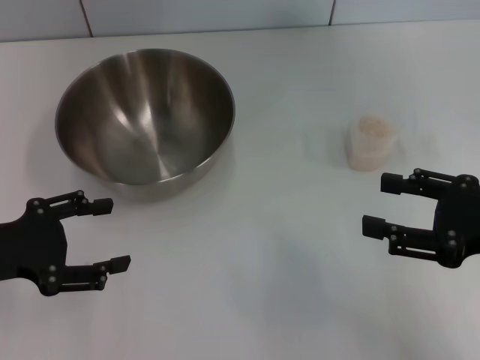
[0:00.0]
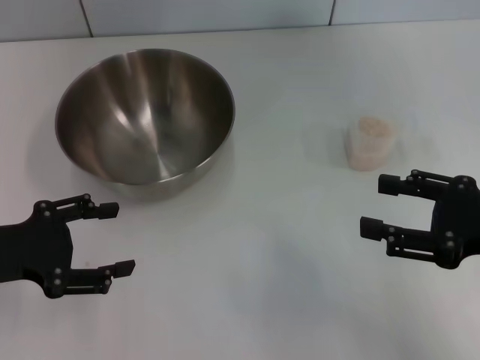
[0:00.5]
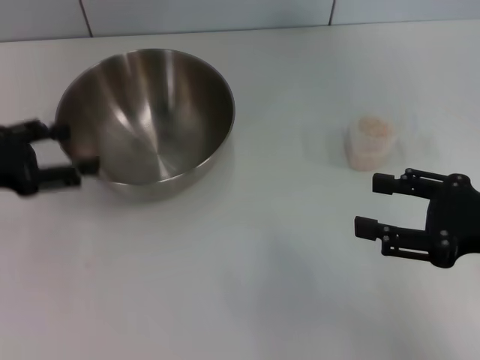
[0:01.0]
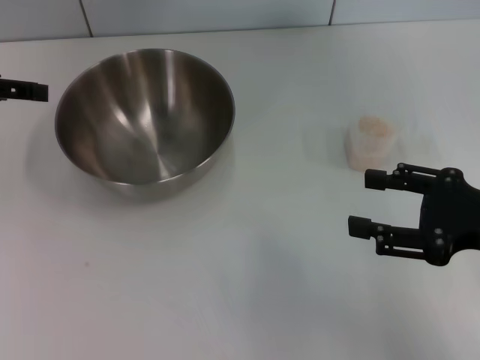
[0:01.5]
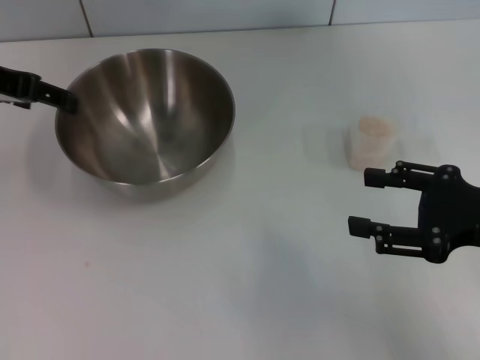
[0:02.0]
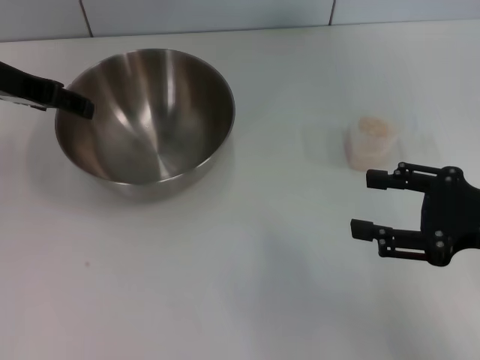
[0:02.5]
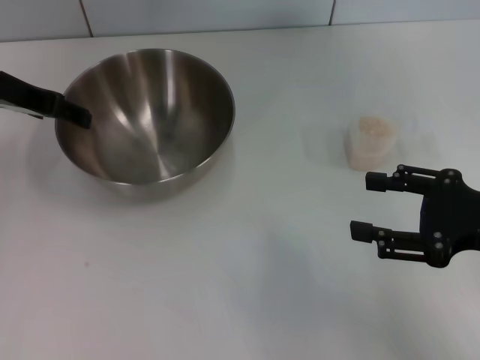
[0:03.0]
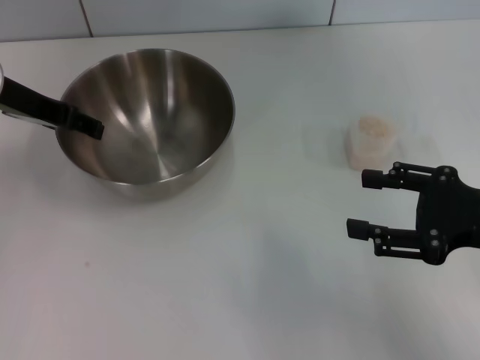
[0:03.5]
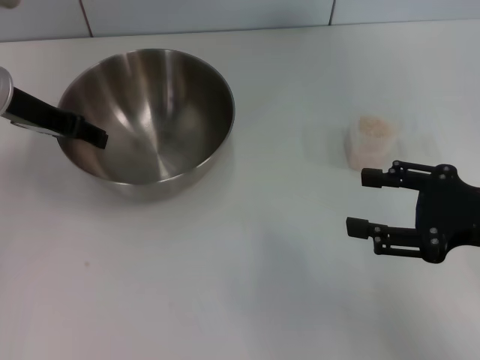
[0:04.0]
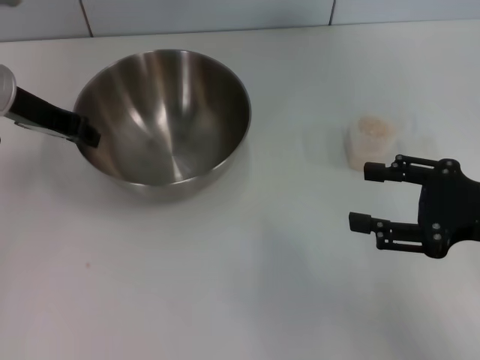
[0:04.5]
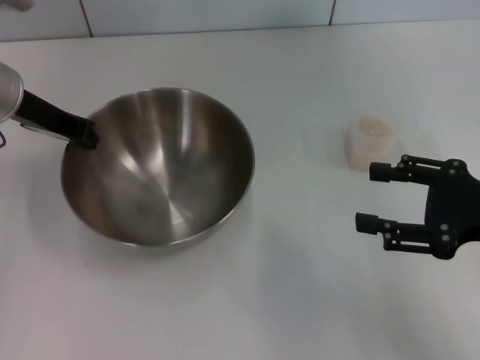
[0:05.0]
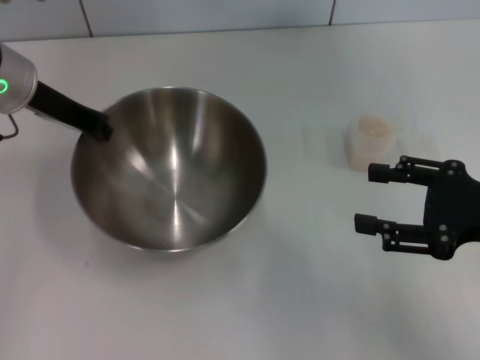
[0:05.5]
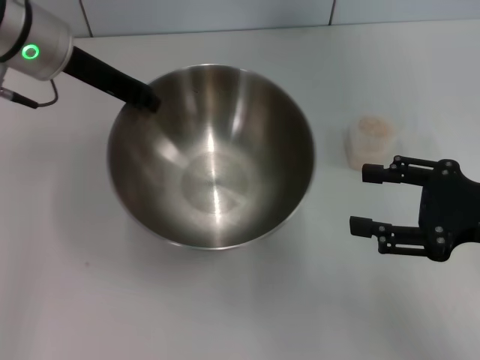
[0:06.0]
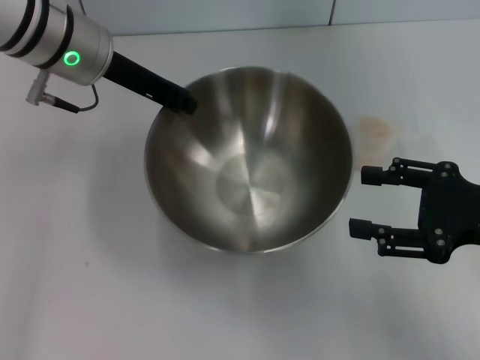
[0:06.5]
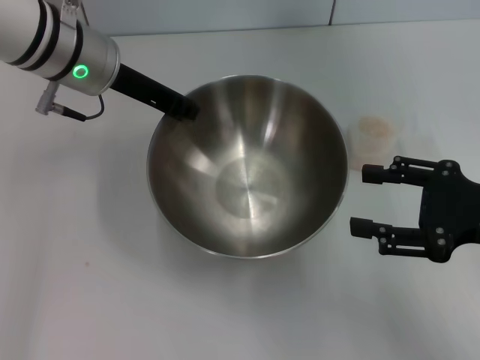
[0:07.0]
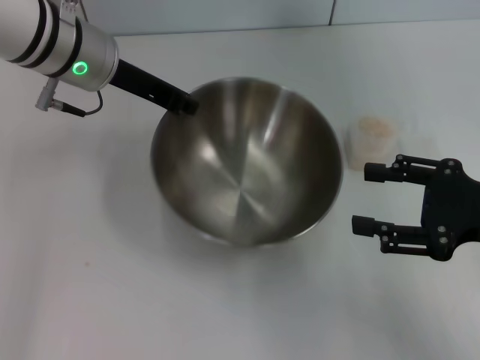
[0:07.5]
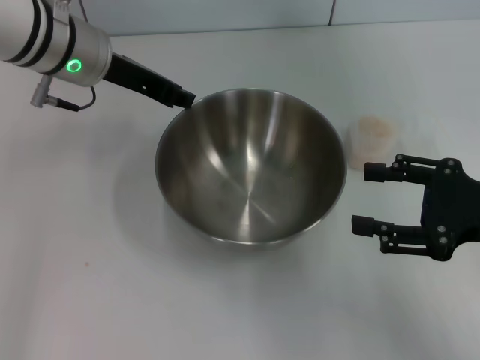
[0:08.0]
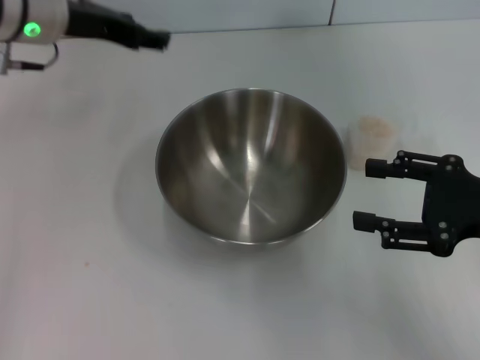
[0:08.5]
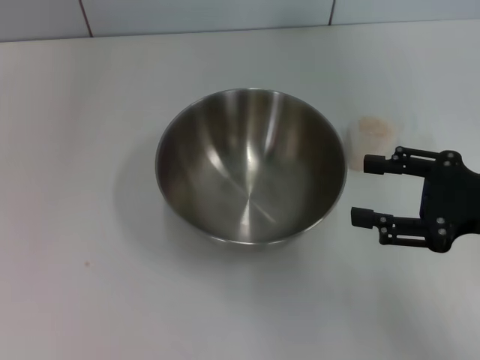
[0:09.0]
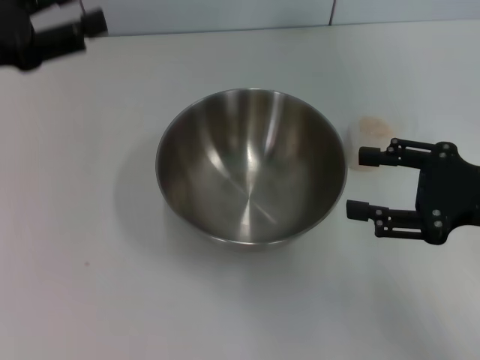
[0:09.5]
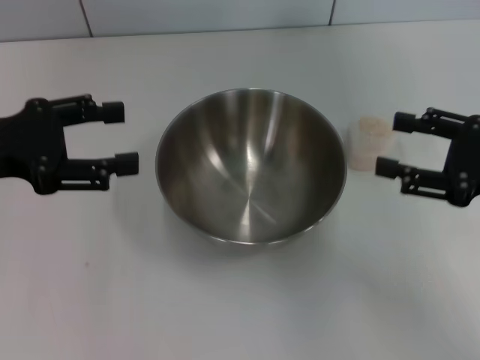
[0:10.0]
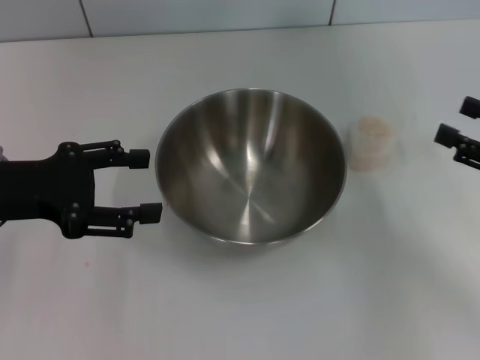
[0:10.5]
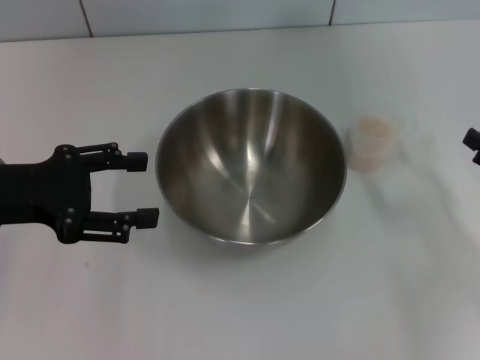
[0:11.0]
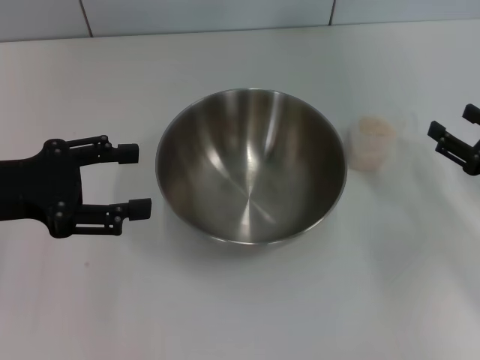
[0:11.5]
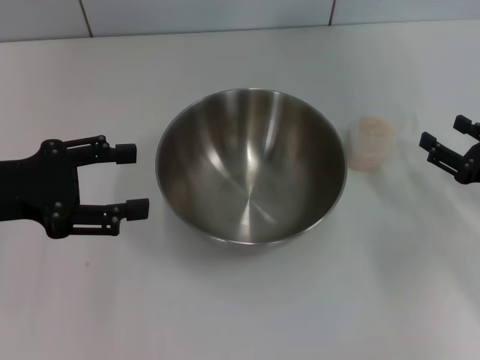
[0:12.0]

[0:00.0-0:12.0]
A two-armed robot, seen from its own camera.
Task of the whole recording: Place the bowl in the middle of the table with one hand and pour the rice from the grain cup into it with the other hand.
Step, 0:00.0 to 0:05.5: Pick up the bowl with the left gripper.
Step, 0:06.0 to 0:08.0: Place the bowl in the center of view with the left gripper.
0:00.0 to 0:02.0: The left gripper heads forward and upward, covering approximately 20 cm.
0:02.0 to 0:04.0: The left gripper heads downward, covering some 5 cm.
0:04.0 to 0:06.0: The left gripper goes about 5 cm to the right, and closes its fingers.
0:08.0 to 0:10.0: The left gripper goes some 20 cm to the left and backward, and opens.
0:10.0 to 0:12.0: The right gripper moves downward, about 10 cm.

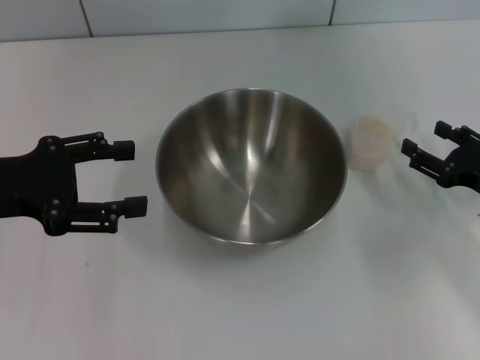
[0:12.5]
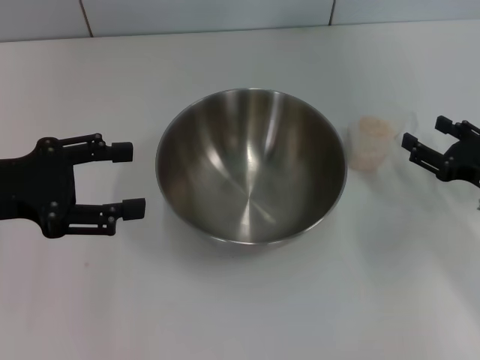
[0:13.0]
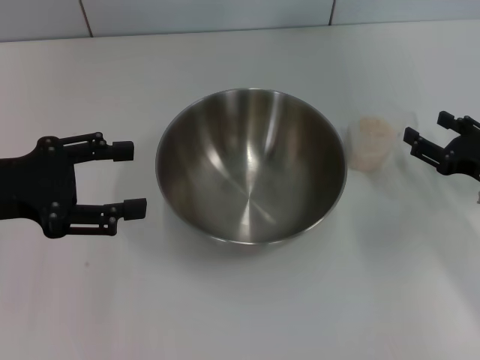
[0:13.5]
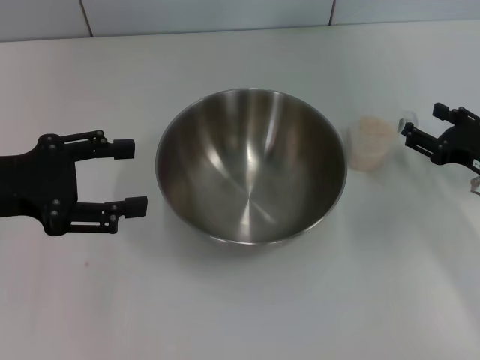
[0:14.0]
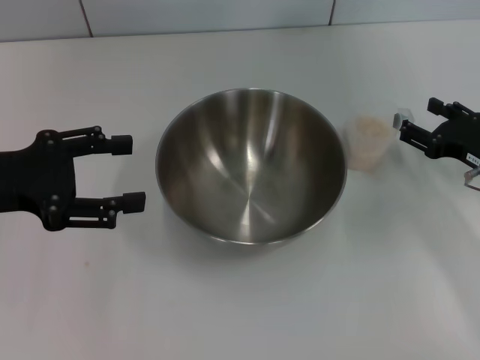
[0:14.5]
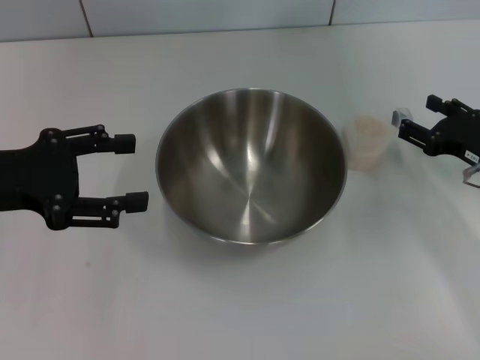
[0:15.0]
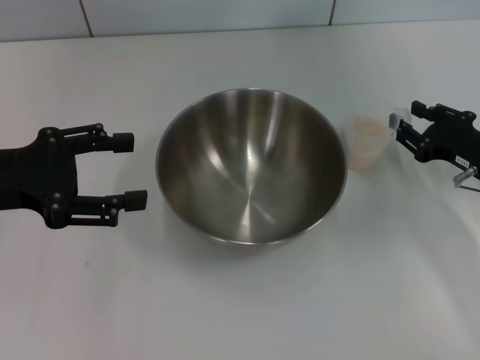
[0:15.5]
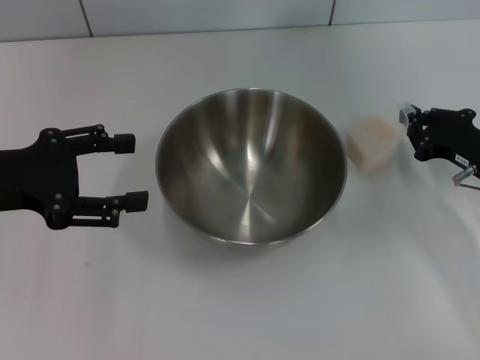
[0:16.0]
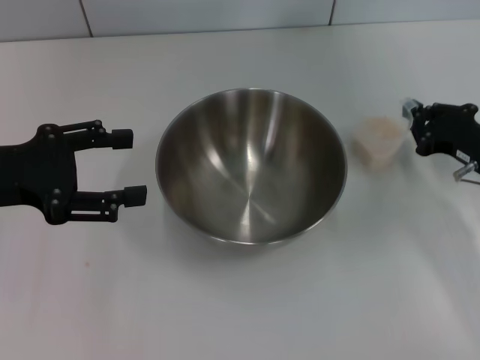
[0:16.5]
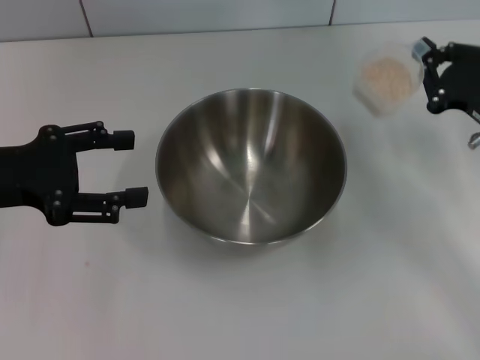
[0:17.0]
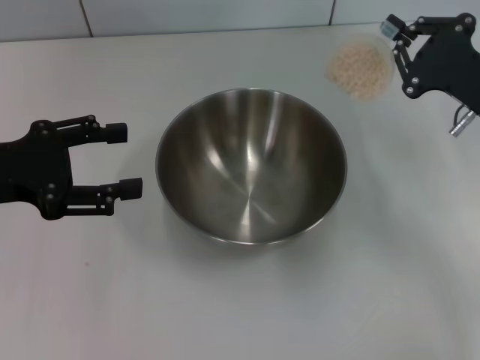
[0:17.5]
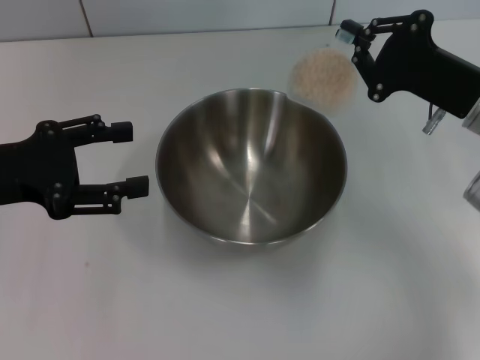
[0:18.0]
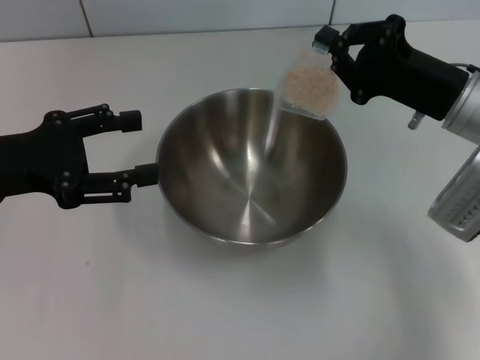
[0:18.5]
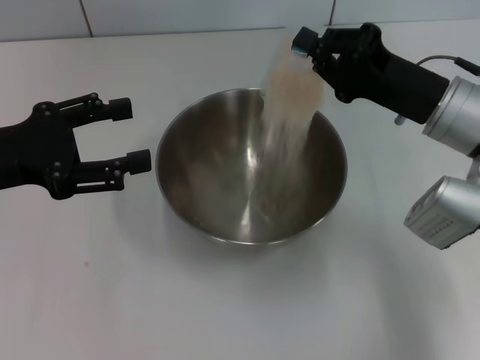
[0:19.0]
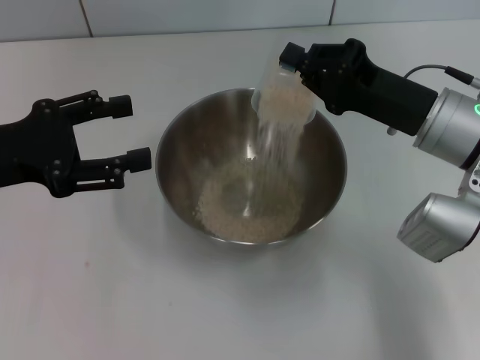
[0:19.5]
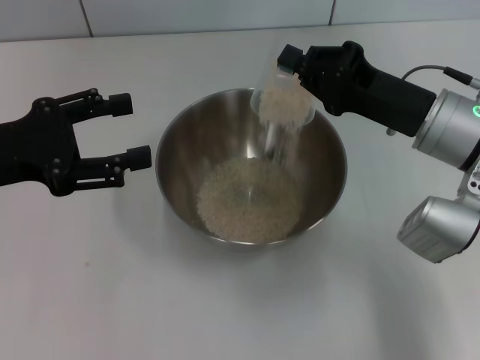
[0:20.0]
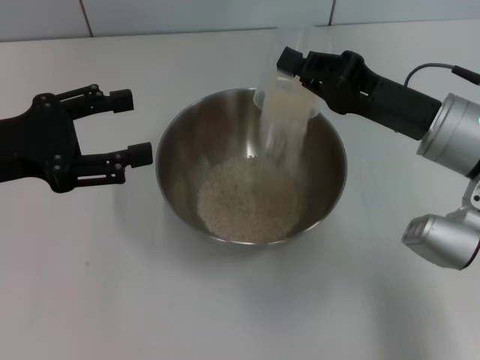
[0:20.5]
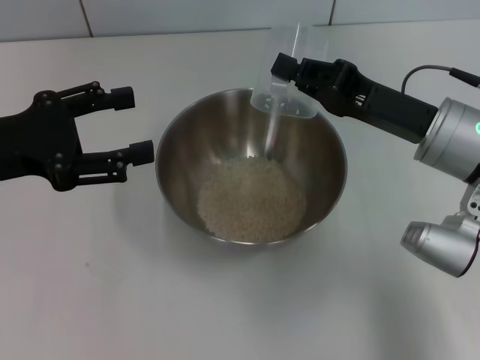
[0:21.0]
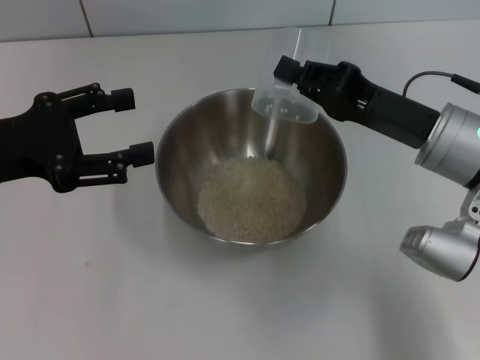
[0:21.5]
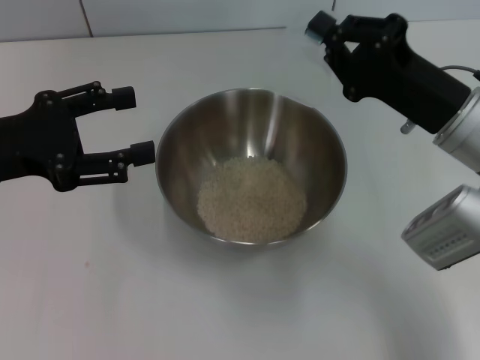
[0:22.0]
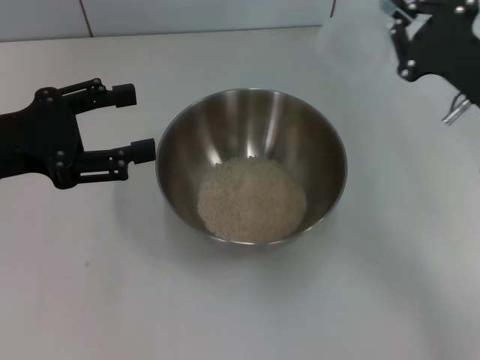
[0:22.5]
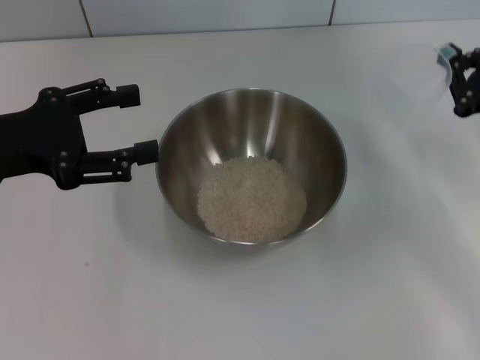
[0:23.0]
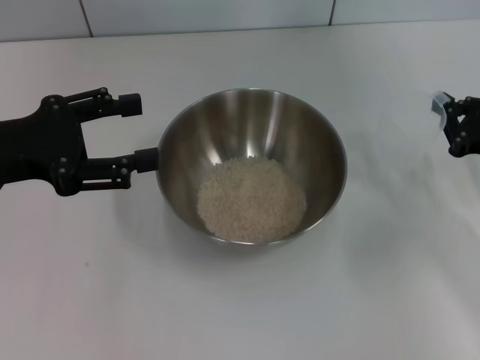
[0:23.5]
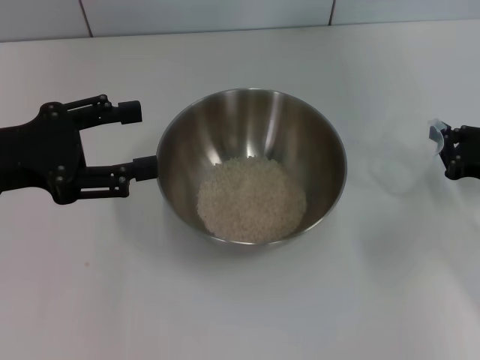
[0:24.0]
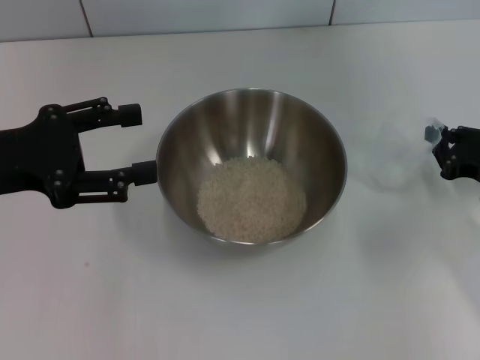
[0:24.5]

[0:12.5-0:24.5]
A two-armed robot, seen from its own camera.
Task of the whole recording: Place the bowl in the middle of the table with one hand and pour the rice from the grain cup into it with the other hand.
Step, 0:12.5 to 0:16.5: Pick up the cup with rice in it with the right gripper.
Step, 0:17.0 to 0:22.0: Pour the rice from the cup into the bowl with the right gripper.
0:12.5 to 0:14.5: There are only small adjustments of the grippers.
0:14.5 to 0:16.5: The right gripper closes up.
0:16.5 to 0:18.5: The right gripper goes roughly 10 cm upward and to the left.
0:20.5 to 0:22.5: The right gripper moves to the right, some 5 cm.
0:22.5 to 0:24.5: The right gripper shifts roughly 10 cm downward and to the right.

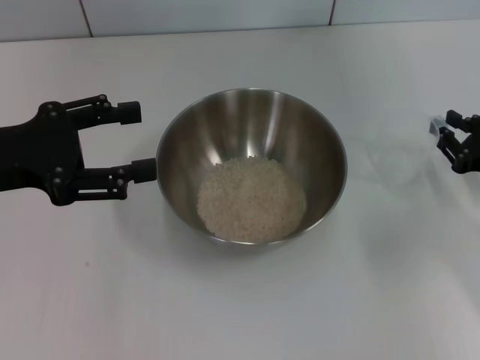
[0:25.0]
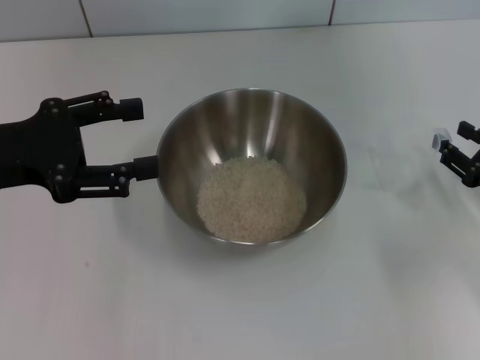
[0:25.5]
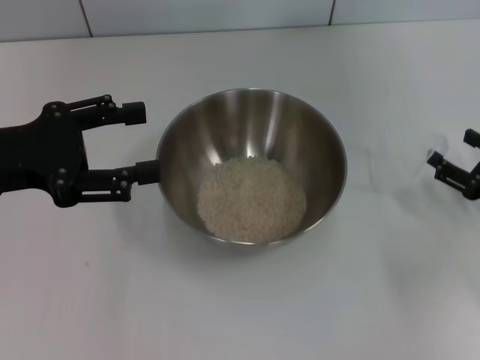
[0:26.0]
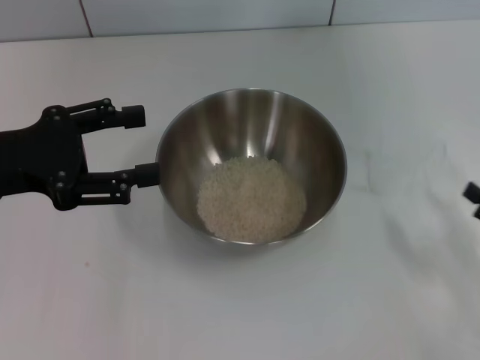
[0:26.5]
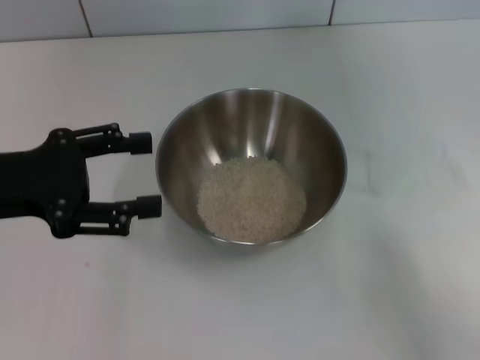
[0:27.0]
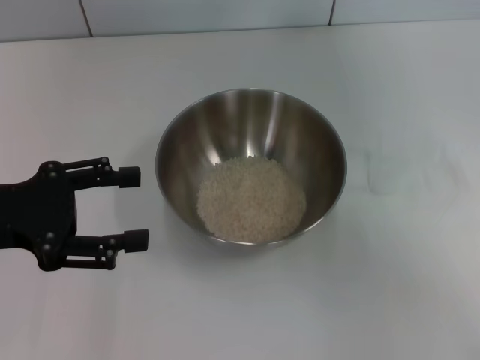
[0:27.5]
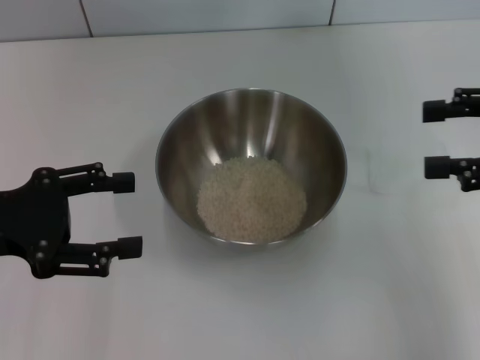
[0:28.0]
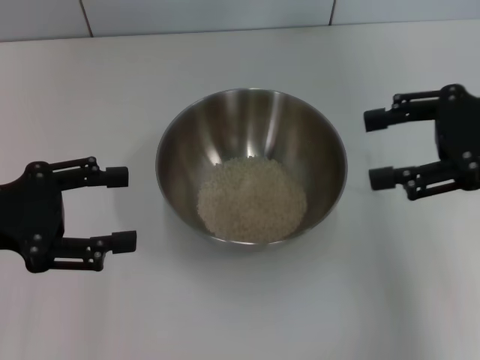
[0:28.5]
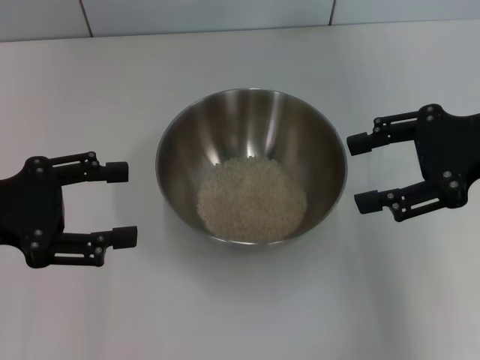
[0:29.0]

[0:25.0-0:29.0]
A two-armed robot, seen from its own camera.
Task of the whole recording: Place the bowl in the middle of the table with one hand and pour the rice from the grain cup into it with the other hand.
0:25.0 to 0:27.0: The right gripper goes about 15 cm backward, upward and to the right, and opens.
0:27.0 to 0:29.0: The right gripper goes roughly 20 cm forward, to the left and upward.
